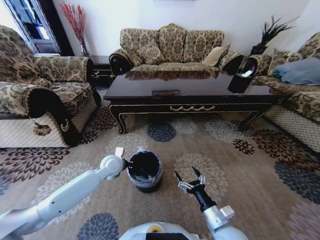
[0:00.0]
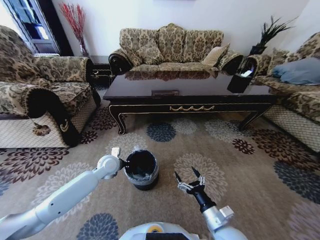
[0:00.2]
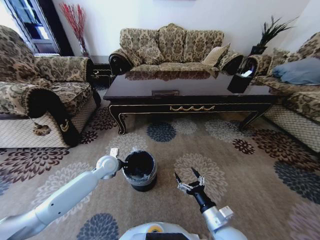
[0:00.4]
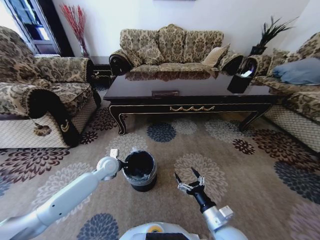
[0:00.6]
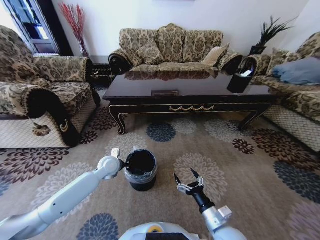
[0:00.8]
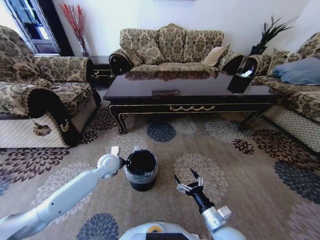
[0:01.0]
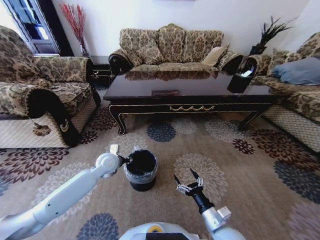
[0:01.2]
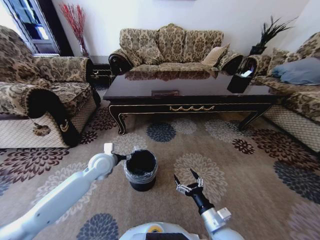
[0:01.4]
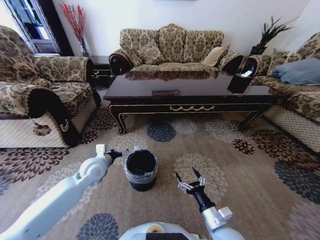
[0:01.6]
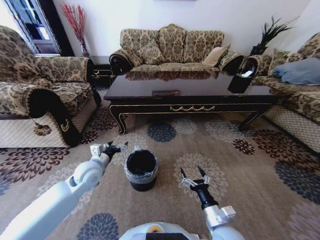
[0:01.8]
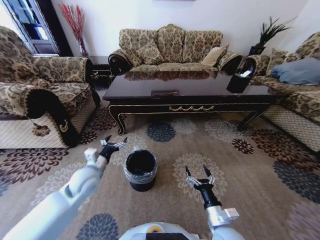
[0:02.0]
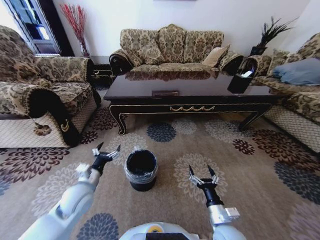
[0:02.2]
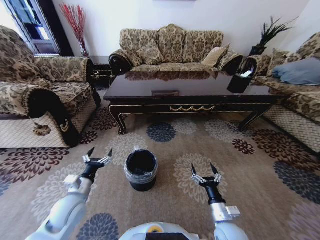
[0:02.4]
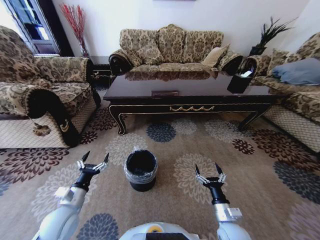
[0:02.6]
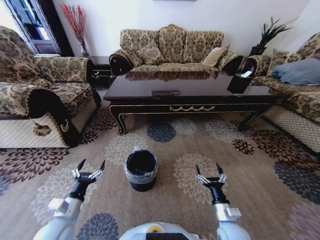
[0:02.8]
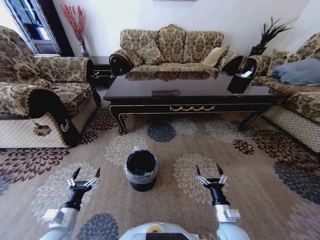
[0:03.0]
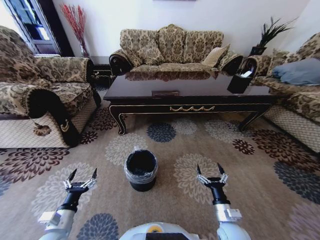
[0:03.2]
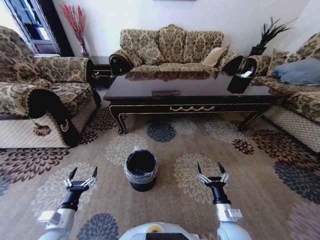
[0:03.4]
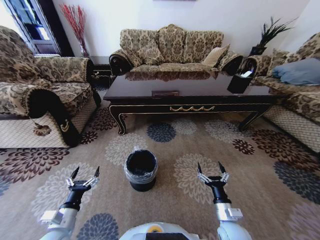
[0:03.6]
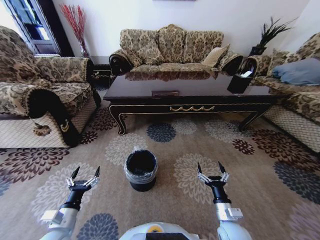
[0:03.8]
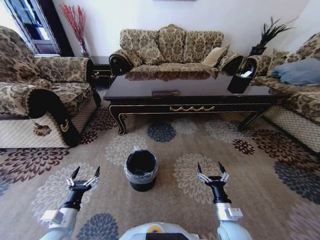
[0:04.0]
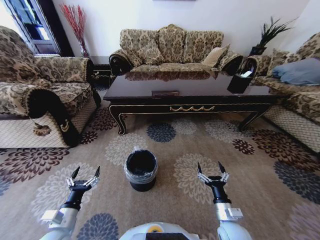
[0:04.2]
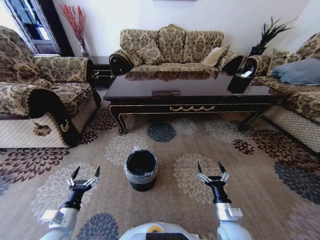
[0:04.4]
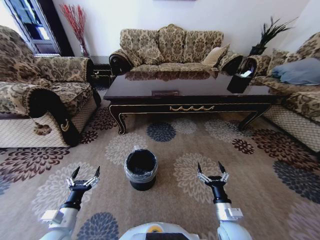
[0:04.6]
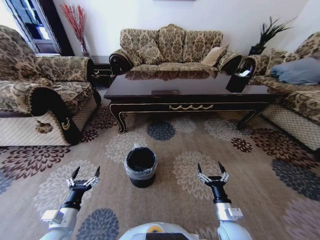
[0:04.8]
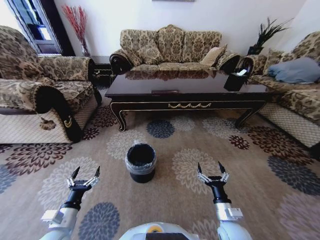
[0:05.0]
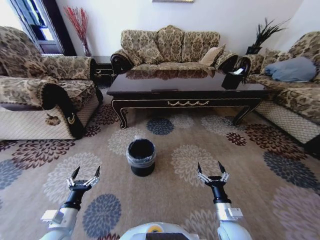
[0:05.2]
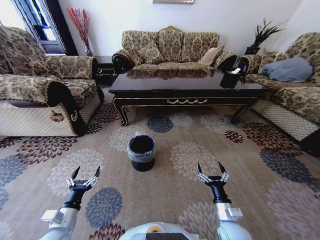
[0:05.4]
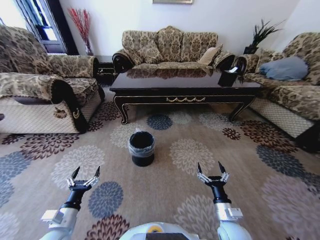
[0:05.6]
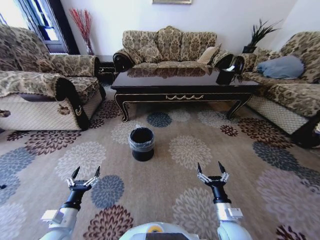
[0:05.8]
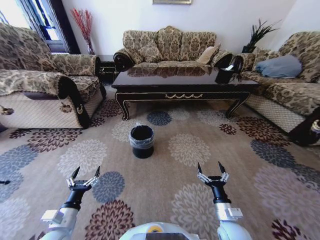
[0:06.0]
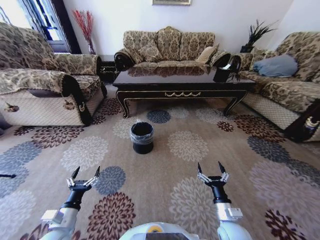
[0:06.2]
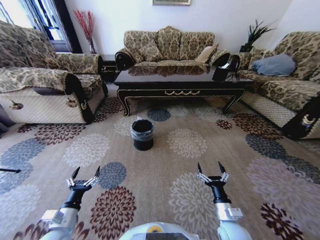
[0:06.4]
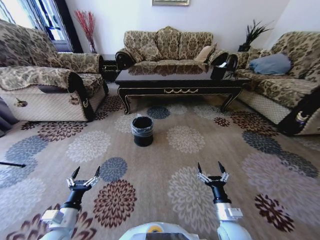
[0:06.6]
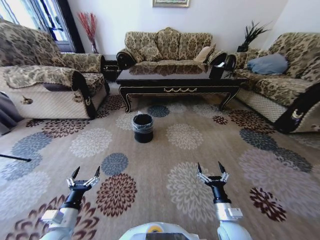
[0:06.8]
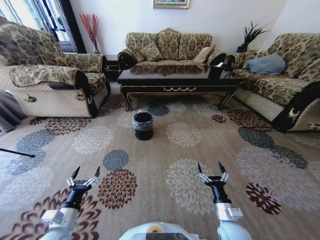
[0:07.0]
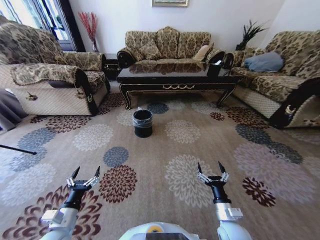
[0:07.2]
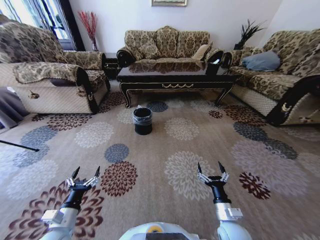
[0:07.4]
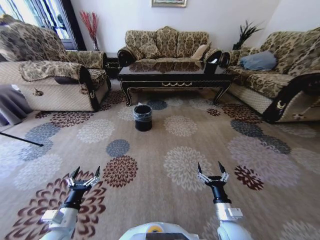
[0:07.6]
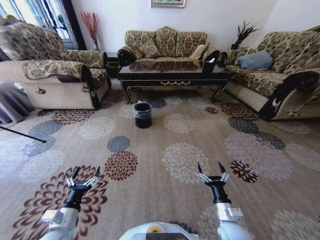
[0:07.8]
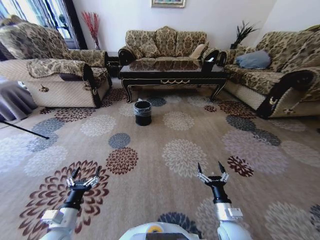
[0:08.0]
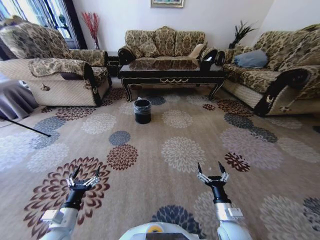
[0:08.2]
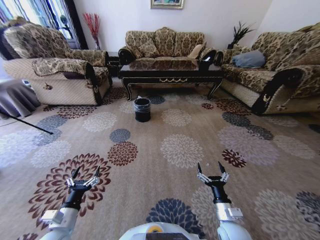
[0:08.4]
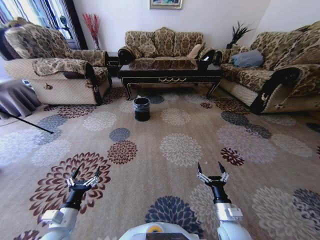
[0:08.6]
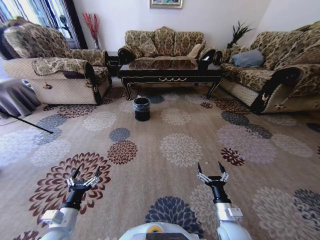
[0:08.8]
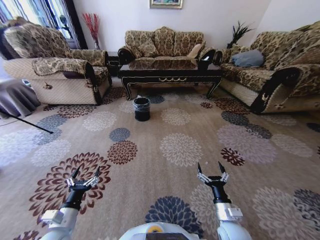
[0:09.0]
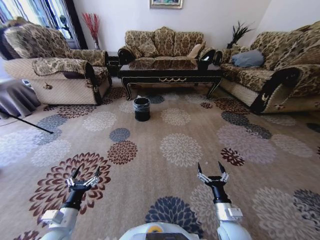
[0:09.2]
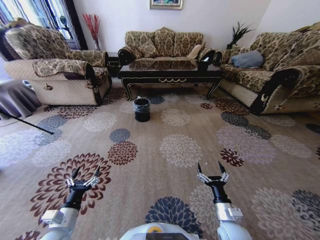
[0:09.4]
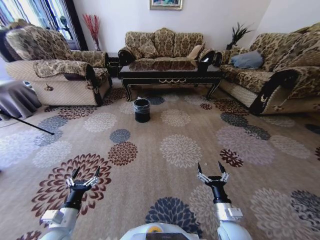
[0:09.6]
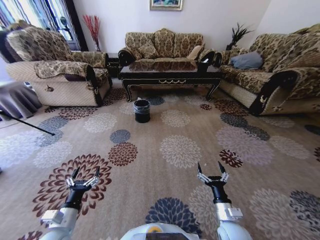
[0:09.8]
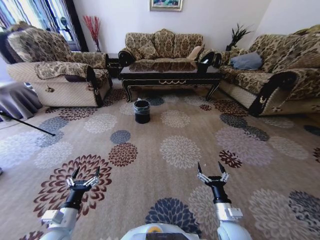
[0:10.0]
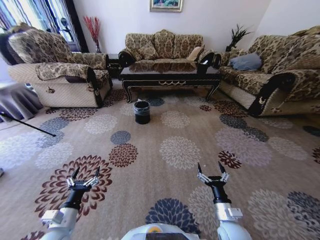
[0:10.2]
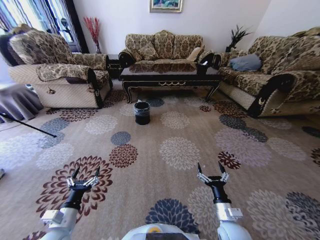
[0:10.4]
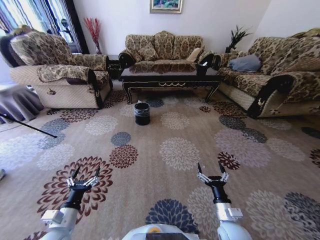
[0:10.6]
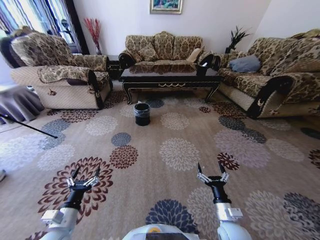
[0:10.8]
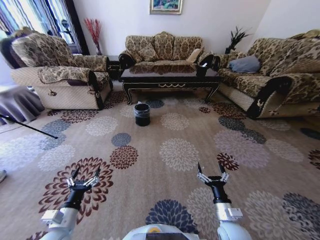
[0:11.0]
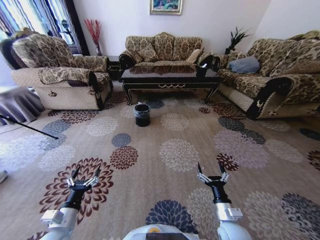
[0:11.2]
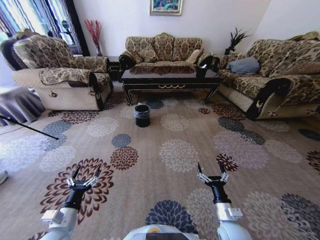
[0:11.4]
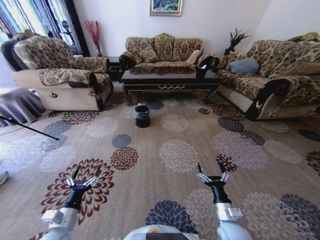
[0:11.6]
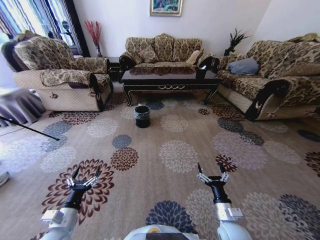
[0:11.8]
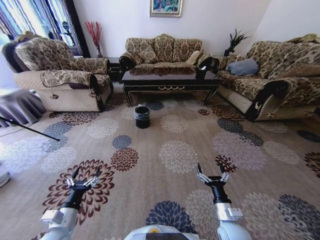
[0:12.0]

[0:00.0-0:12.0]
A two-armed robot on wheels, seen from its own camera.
Task of the whole recording: Move to the front of the table and pick up the trash from the floor, then place it into the trash bin.
0:00.0 to 0:01.6: The left gripper heads to the left, covering some 5 cm, and opens up.
0:01.6 to 0:03.0: The left gripper shifts some 25 cm backward and downward. Meanwhile the right gripper shifts by some 5 cm.
0:03.0 to 0:04.4: The two grippers keep their place.

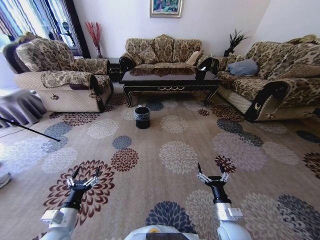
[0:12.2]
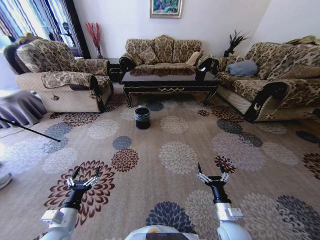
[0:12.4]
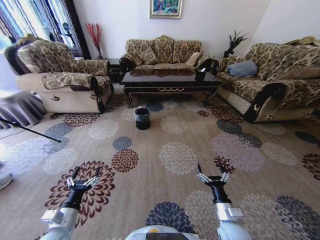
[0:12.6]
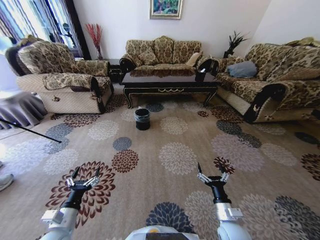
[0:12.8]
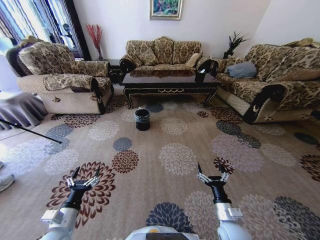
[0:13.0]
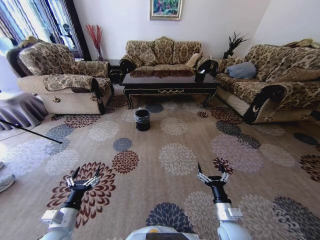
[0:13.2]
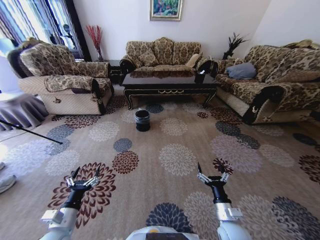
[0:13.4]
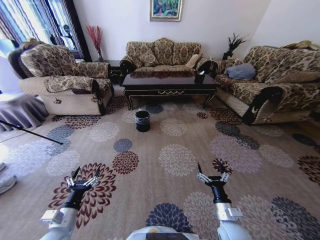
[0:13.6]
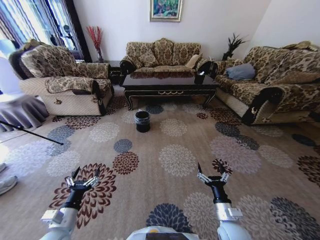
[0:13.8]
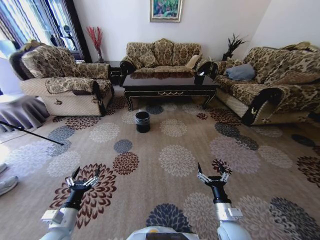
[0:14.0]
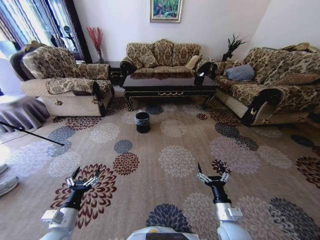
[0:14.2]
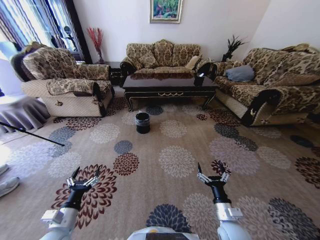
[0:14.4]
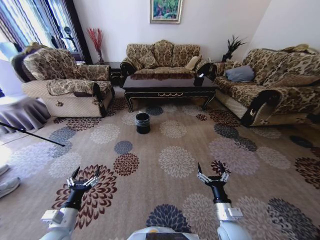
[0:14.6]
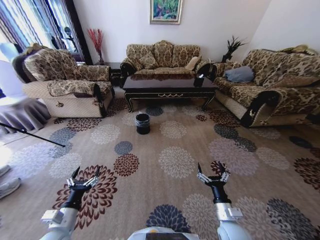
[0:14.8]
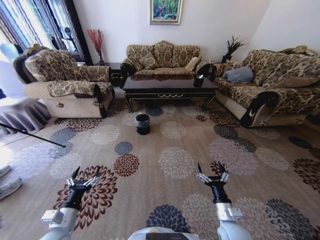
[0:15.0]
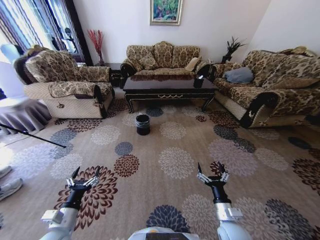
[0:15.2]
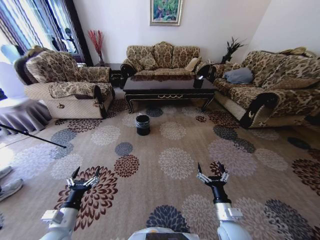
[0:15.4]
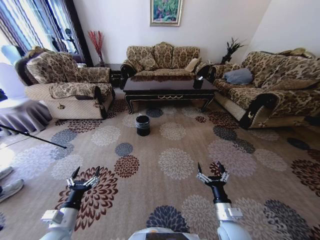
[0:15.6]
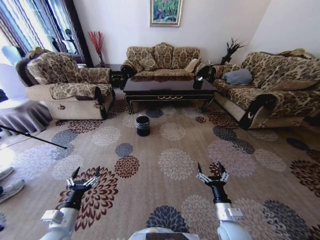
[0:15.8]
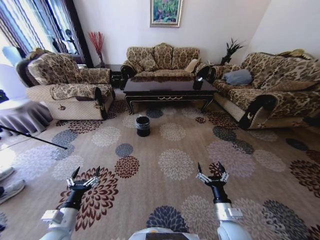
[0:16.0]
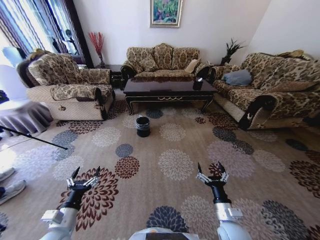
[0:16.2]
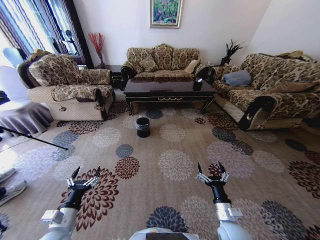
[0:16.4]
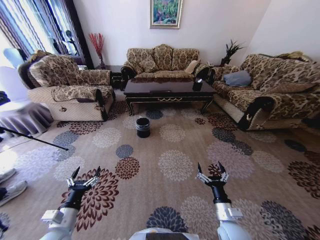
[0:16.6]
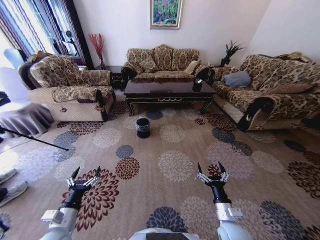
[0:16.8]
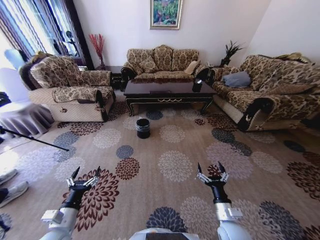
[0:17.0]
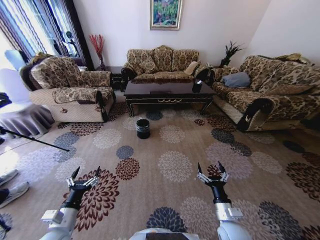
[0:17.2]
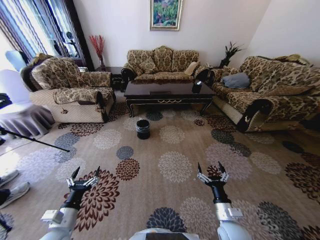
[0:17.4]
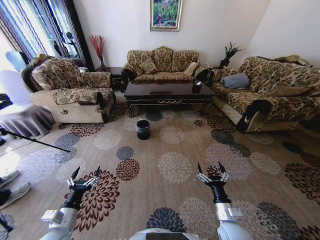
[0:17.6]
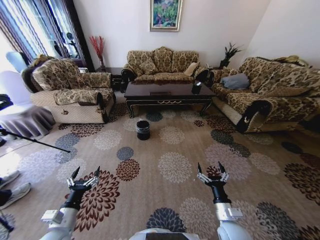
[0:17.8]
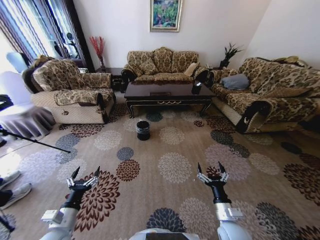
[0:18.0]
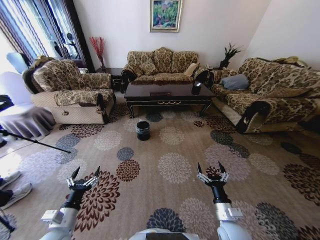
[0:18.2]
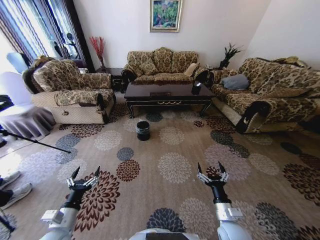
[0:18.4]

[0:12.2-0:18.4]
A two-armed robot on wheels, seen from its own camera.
Task of the whole recording: Move to the front of the table and pick up the trash from the floor, then place it into the trash bin.
0:16.8 to 0:18.4: The two grippers keep their place.
